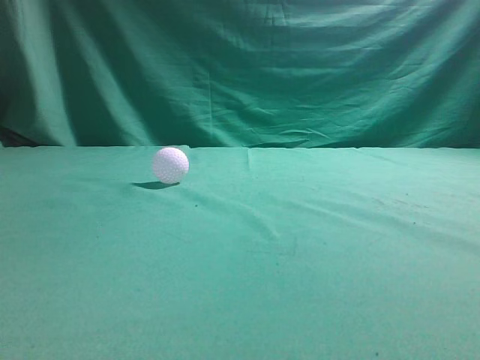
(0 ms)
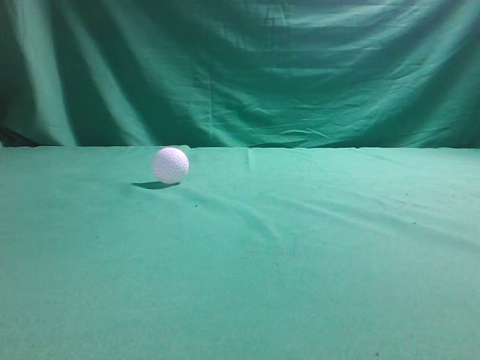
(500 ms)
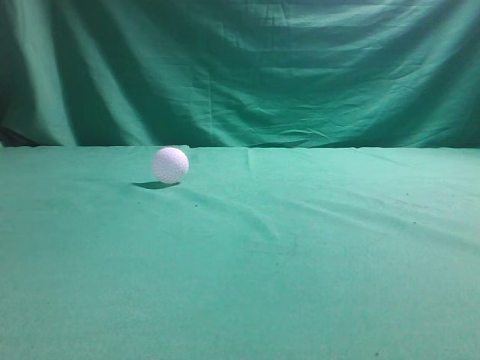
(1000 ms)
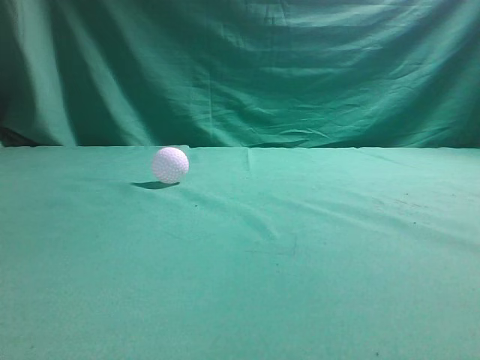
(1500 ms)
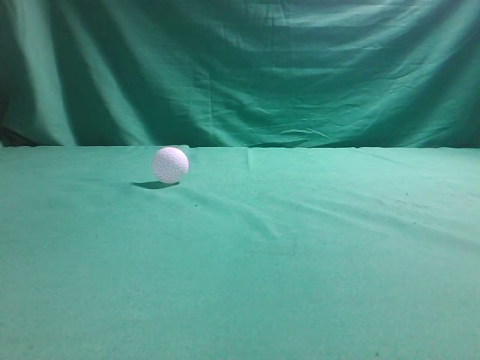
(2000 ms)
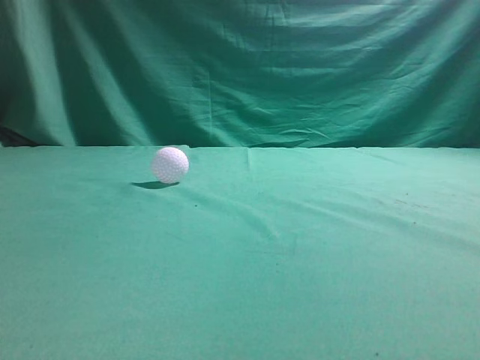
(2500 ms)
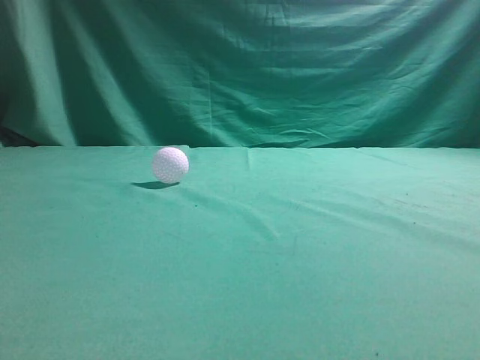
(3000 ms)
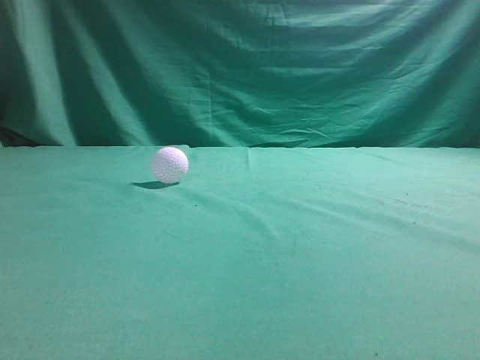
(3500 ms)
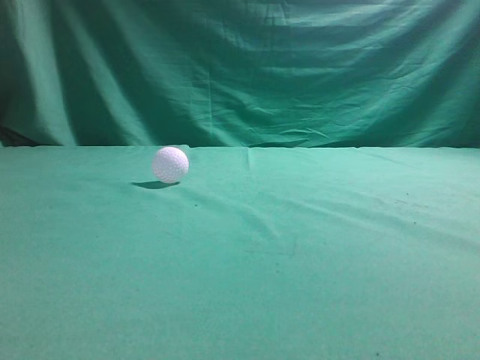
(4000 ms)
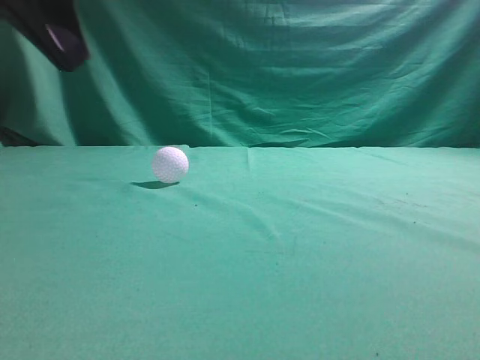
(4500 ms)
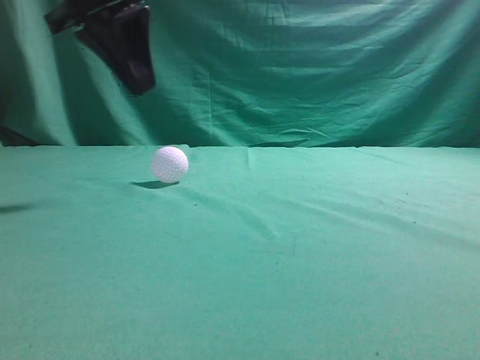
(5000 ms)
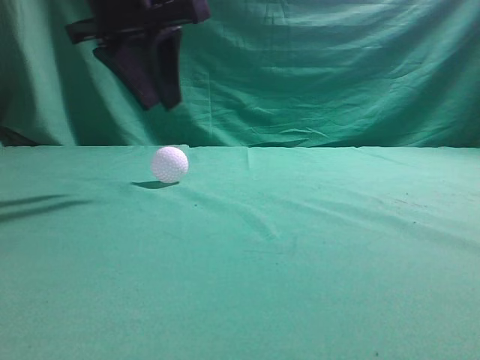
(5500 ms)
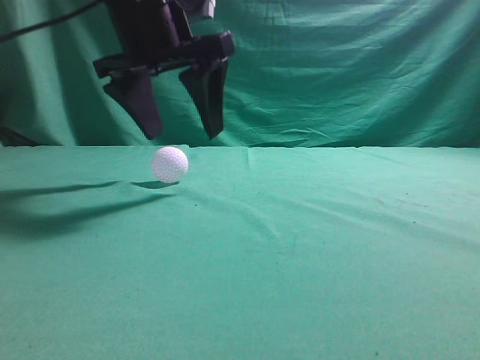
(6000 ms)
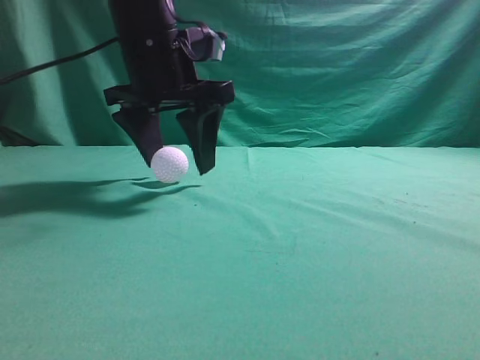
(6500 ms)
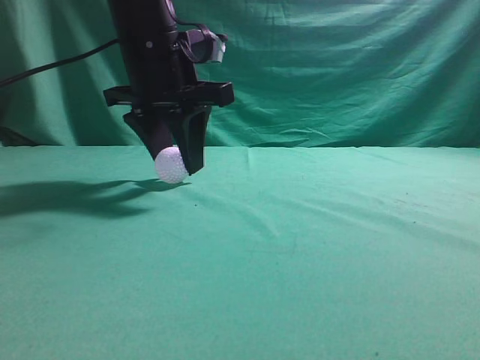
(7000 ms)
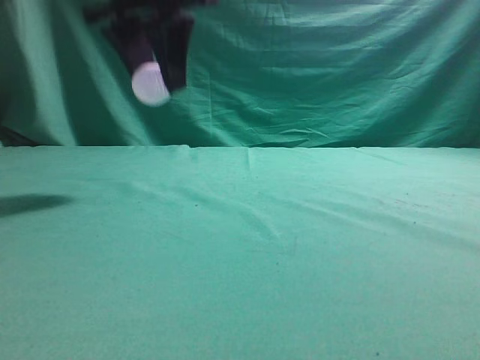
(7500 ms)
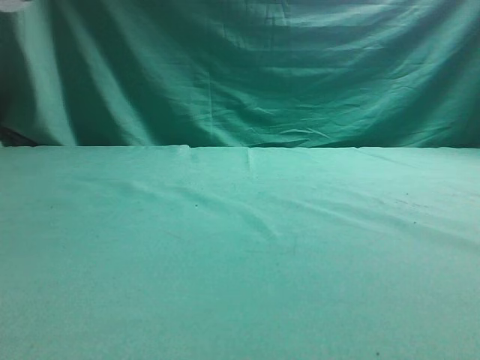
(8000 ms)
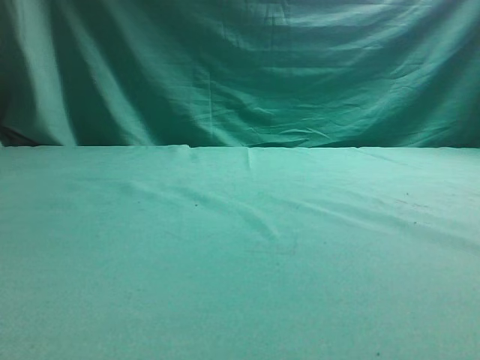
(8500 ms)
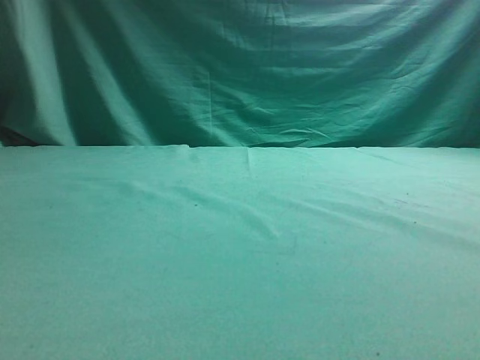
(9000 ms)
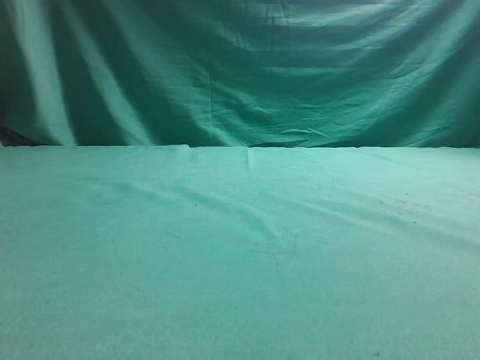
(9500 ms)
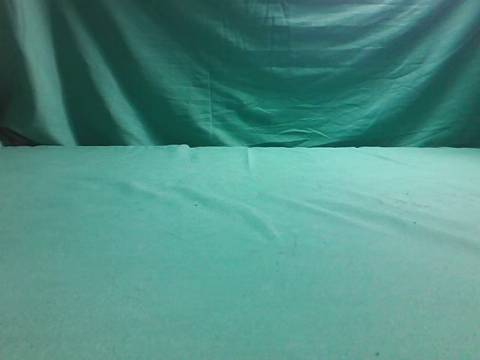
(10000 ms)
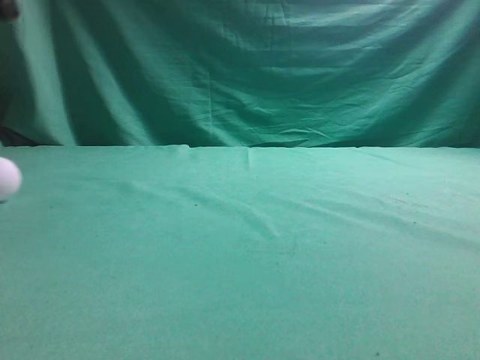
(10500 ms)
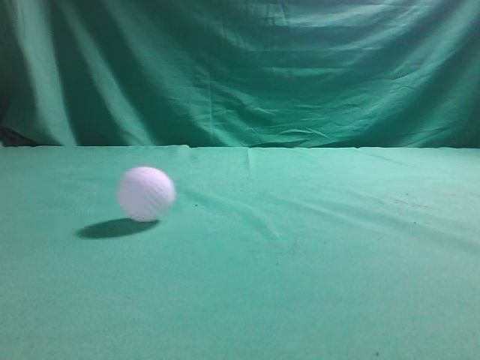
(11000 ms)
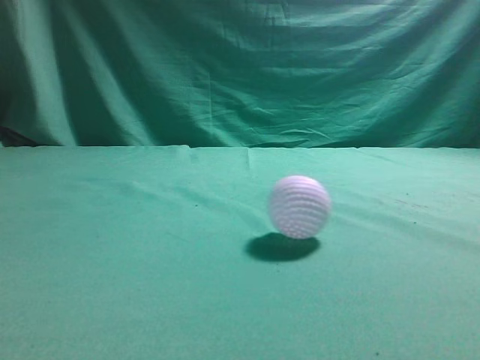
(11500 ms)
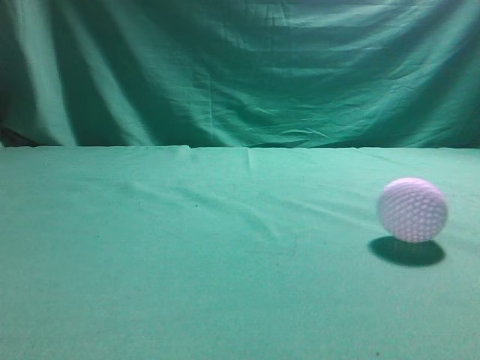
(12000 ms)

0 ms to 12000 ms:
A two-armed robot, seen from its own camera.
Task of the whole recording: pick up the ball and place it on the plate, then pick up the ball from the plate and put it in the center of the table.
Step, 0 ms to 7000 ms: Grab the spherical object with your left arm.
Step, 7500 ms to 9500 ms: Place the sphere on the white object.
4000 ms to 6000 ms: The left gripper moves forward and to the right, about 25 cm, and opens its fingers.
6000 ms to 8000 ms: The left gripper heads upward, to the left and backward, covering roughly 15 cm, and closes.

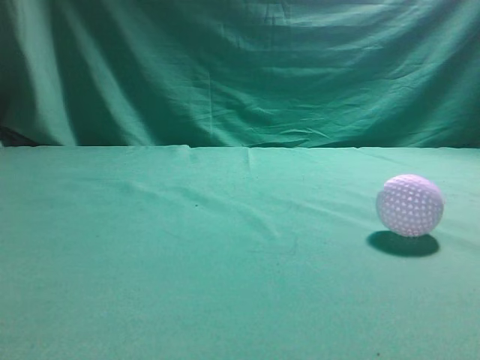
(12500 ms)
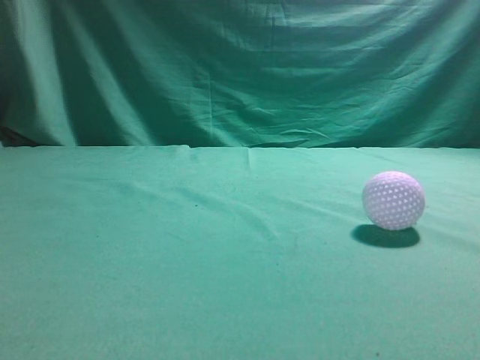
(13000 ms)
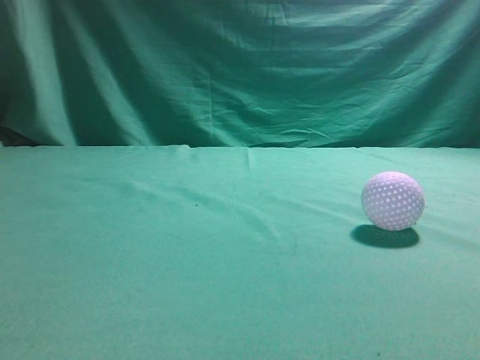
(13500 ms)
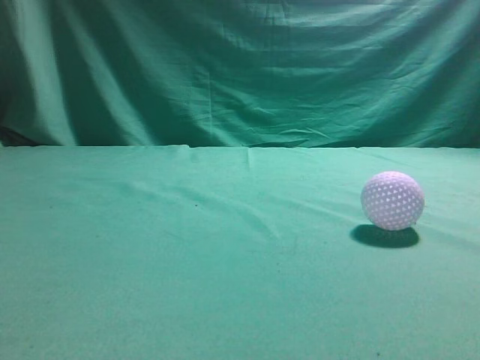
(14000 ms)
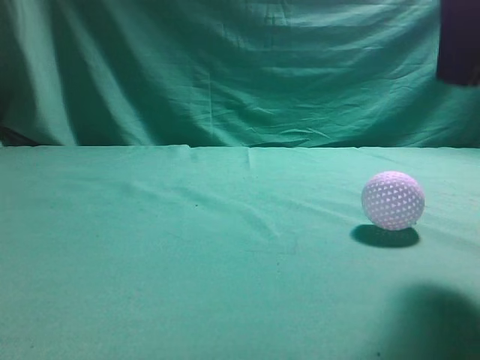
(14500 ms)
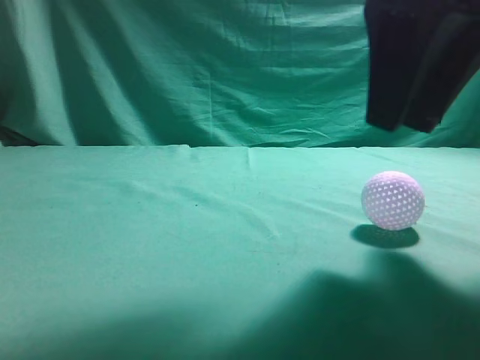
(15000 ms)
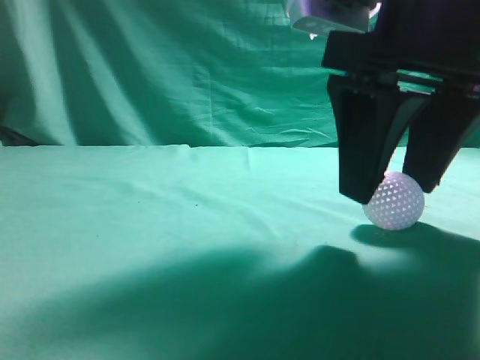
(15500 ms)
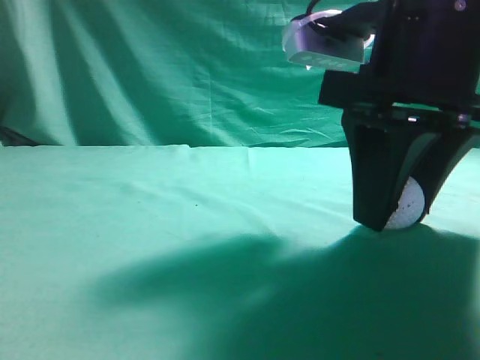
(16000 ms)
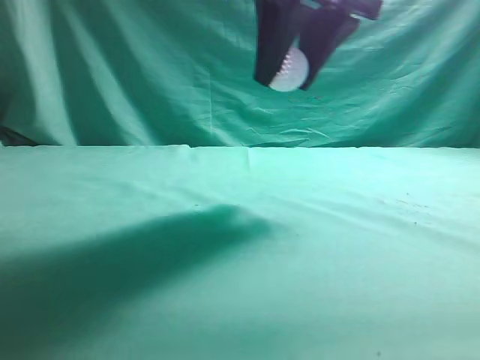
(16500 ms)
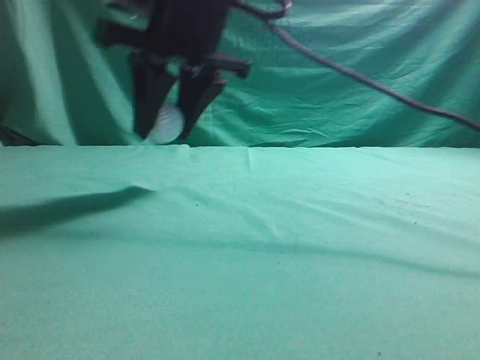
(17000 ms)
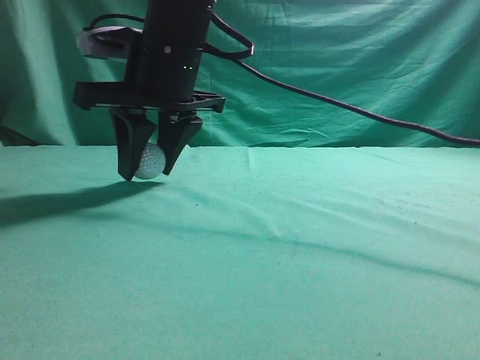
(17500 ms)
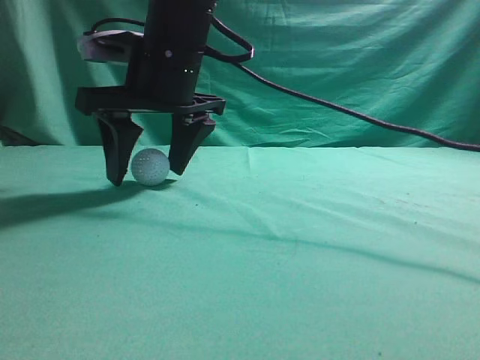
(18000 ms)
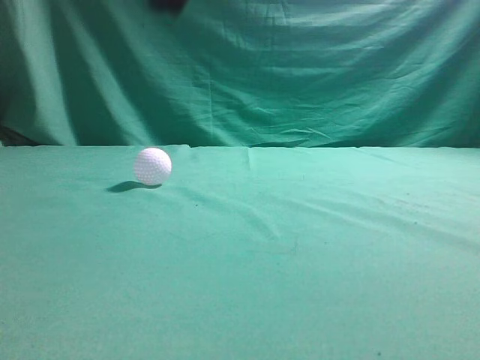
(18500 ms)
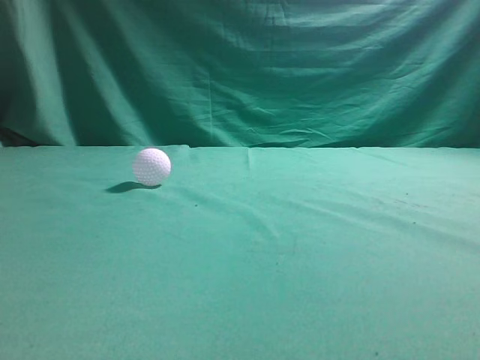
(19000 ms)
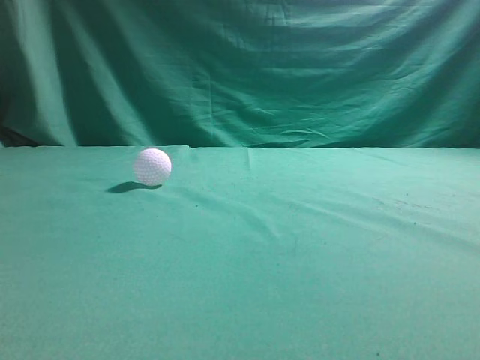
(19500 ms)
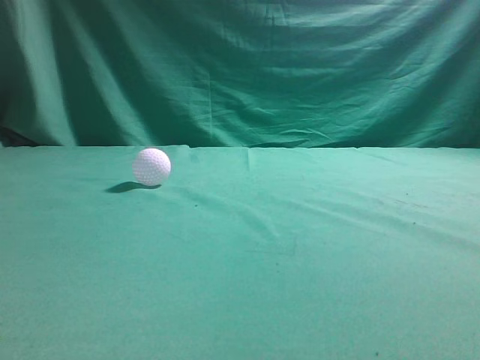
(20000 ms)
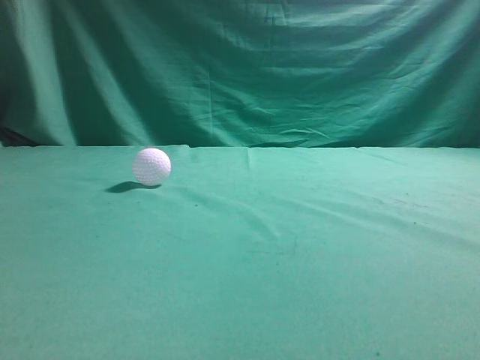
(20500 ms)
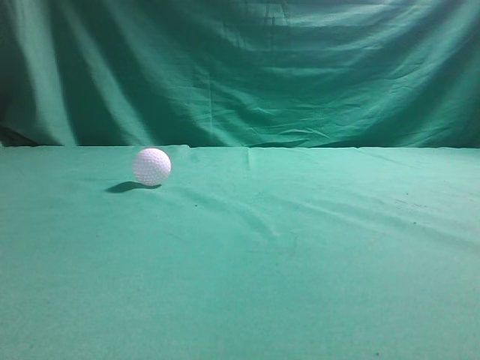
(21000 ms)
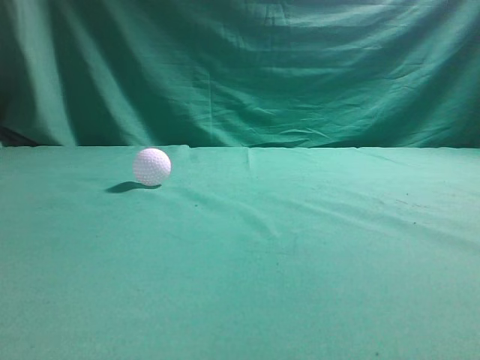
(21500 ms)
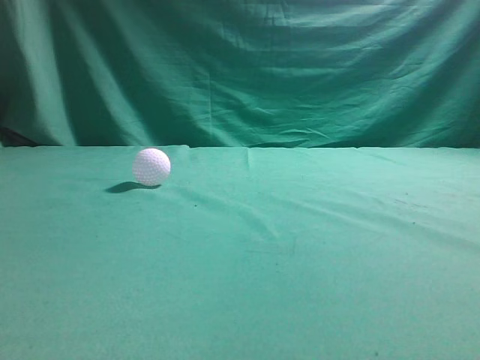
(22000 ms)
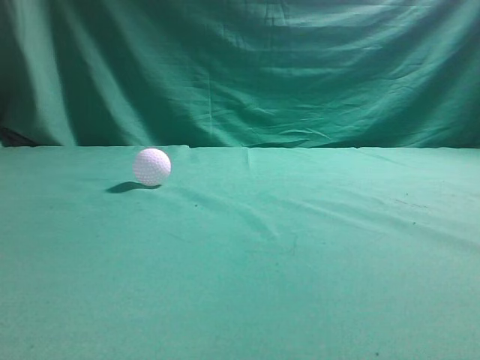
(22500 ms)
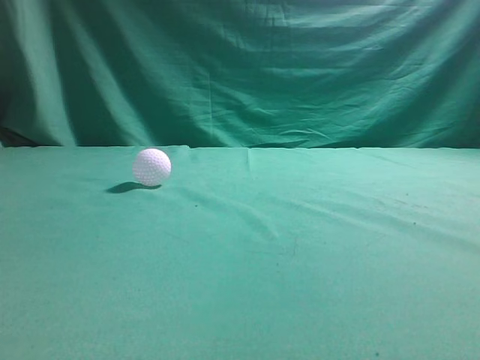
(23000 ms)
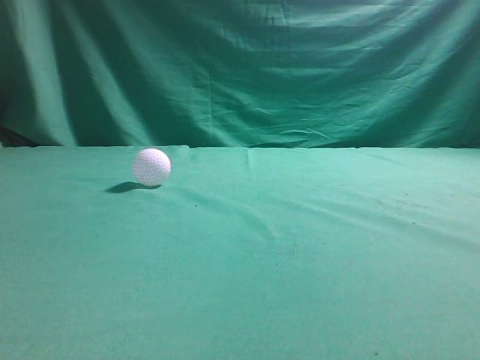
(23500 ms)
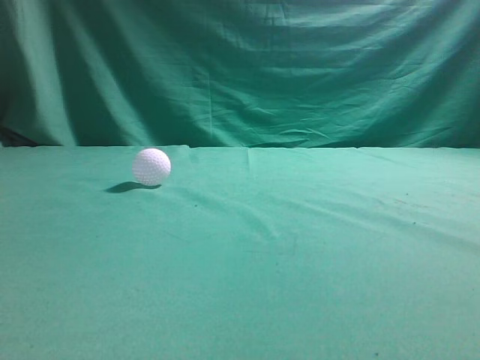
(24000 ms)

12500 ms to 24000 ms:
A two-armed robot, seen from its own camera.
Task of the whole recording: pick up the ball and place it on the plate, then pick up the ball from the plate and put it in the center of the table.
Step, 12500 ms to 16000 ms: Grab the rolling spherical object.
Step, 16500 ms to 18000 ms: Put the picked-up object on the table.
12500 ms to 14500 ms: The right gripper is displaced forward and to the left by some 20 cm.
14500 ms to 16500 ms: The right gripper is displaced forward and to the left by about 15 cm, and opens.
16500 ms to 18500 ms: The right gripper shifts approximately 15 cm to the left and upward, and closes.

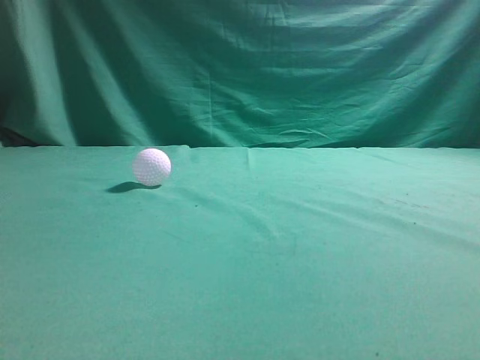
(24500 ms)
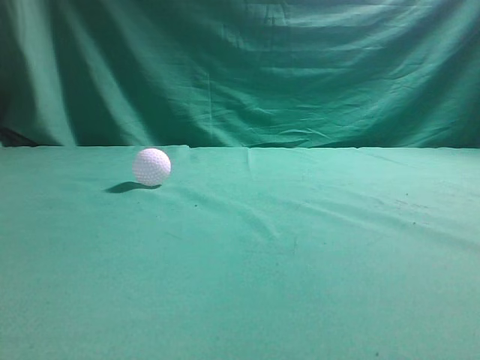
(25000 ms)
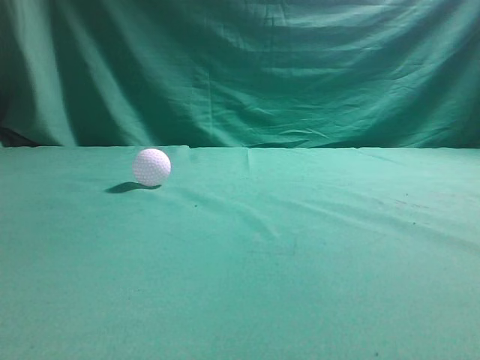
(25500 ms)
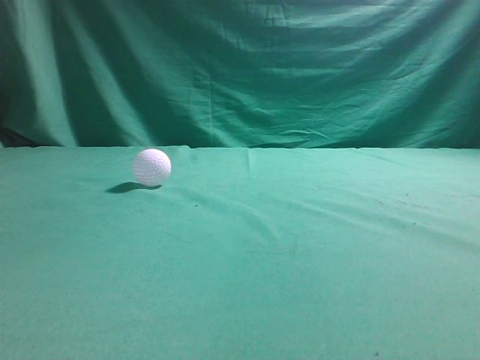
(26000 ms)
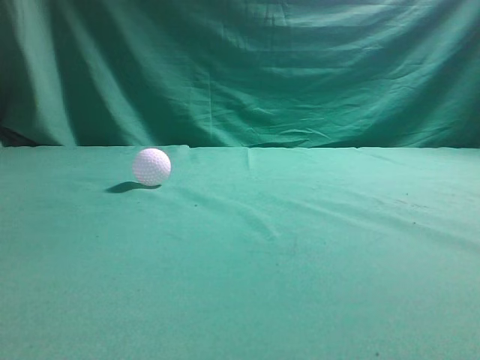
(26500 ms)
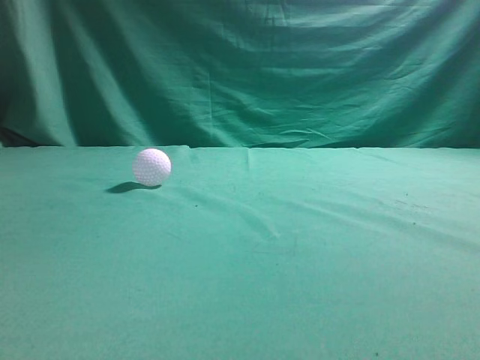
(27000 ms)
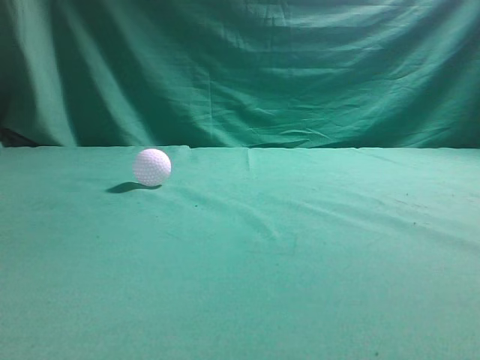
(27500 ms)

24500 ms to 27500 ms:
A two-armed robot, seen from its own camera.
Task of the whole recording: pick up the ball and place it on the plate, then pick up the ball from the plate and put it in the center of the table.
26000 ms to 27500 ms: The two grippers keep their place.
